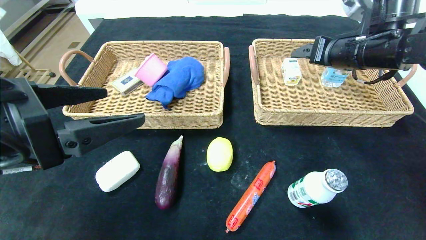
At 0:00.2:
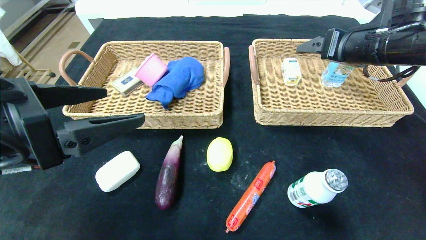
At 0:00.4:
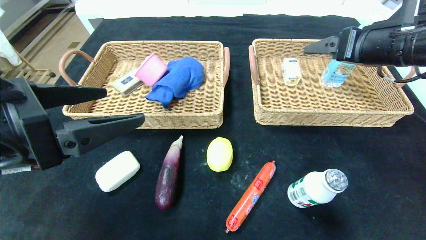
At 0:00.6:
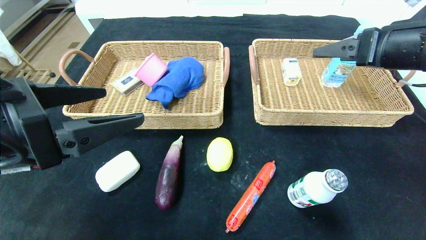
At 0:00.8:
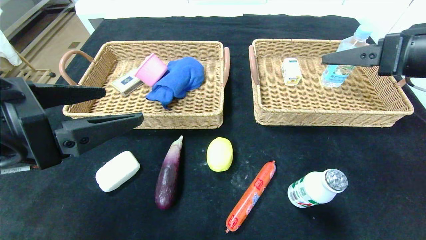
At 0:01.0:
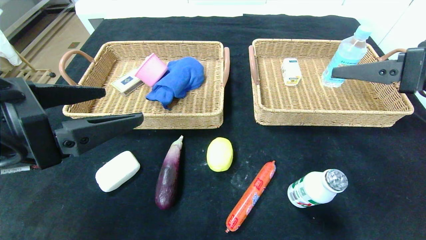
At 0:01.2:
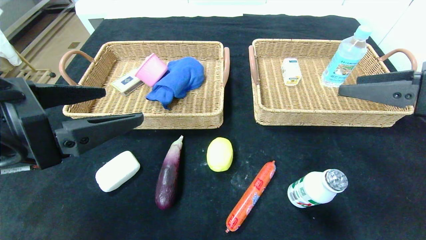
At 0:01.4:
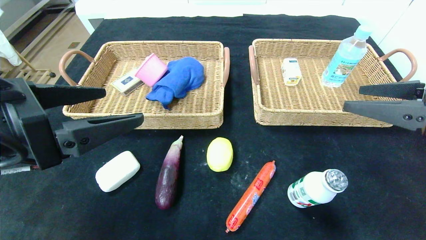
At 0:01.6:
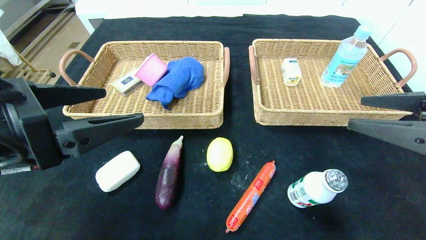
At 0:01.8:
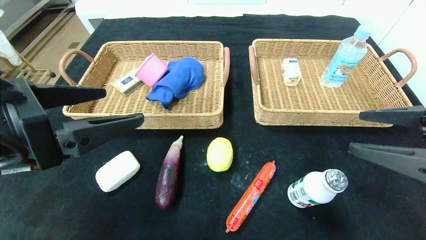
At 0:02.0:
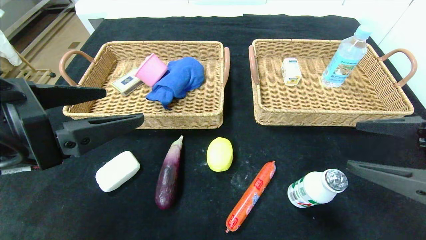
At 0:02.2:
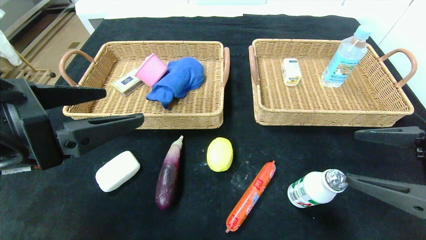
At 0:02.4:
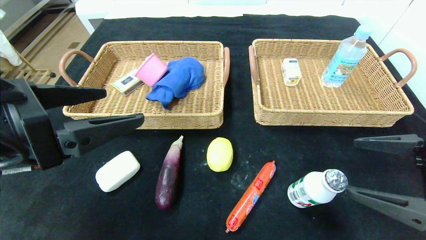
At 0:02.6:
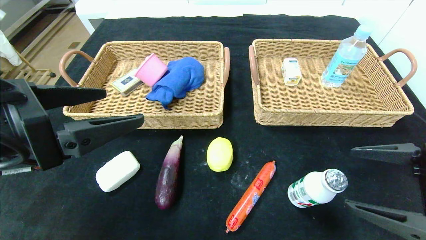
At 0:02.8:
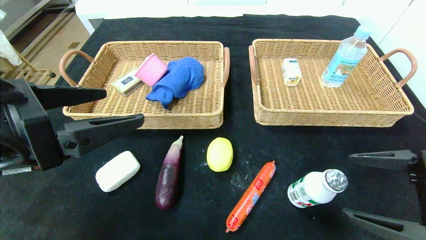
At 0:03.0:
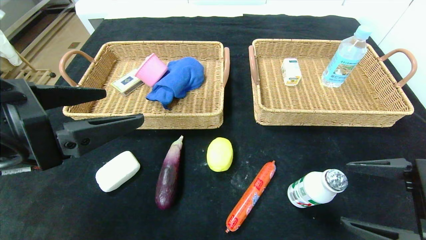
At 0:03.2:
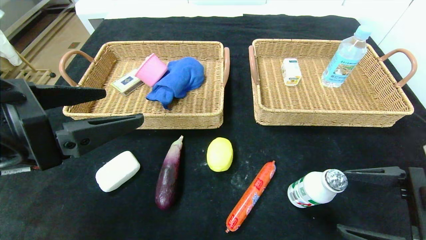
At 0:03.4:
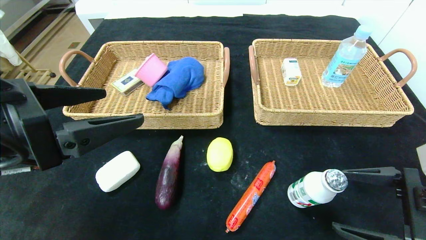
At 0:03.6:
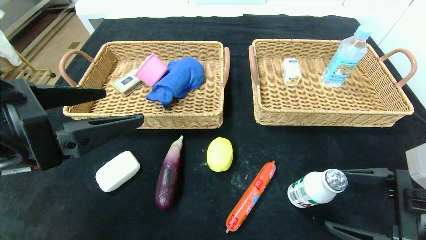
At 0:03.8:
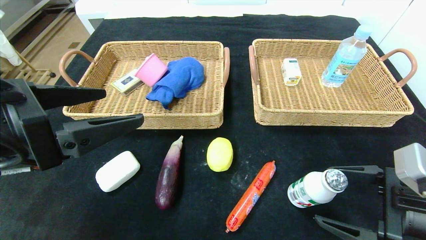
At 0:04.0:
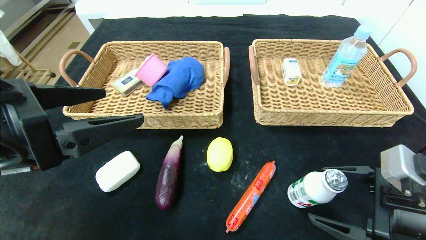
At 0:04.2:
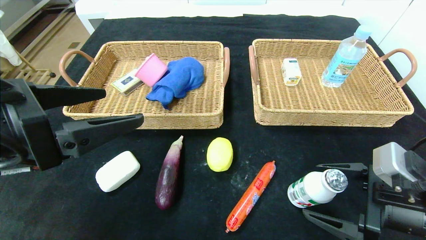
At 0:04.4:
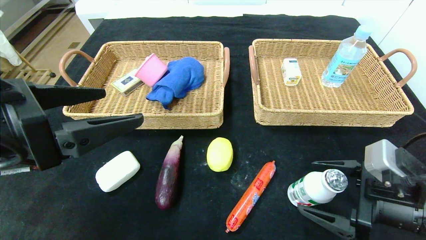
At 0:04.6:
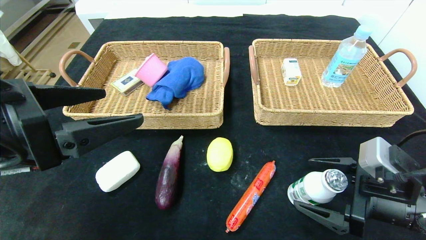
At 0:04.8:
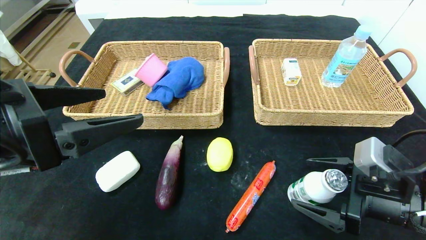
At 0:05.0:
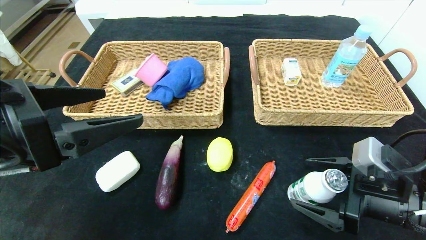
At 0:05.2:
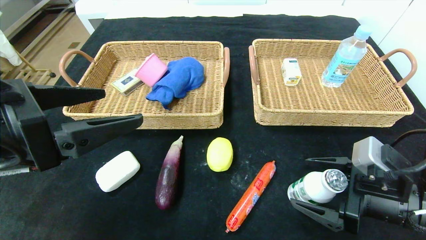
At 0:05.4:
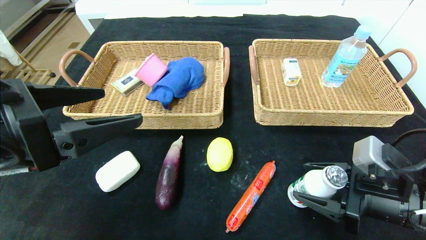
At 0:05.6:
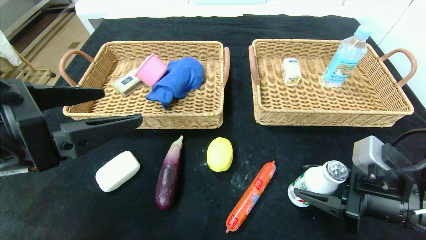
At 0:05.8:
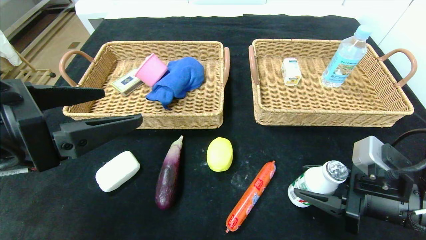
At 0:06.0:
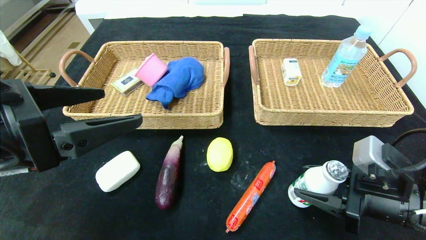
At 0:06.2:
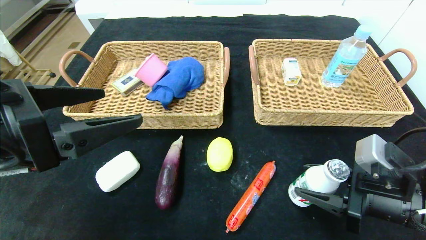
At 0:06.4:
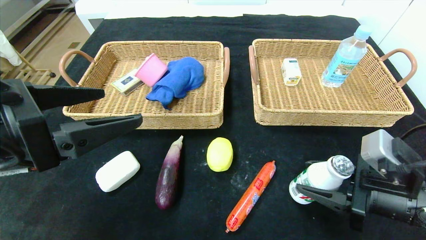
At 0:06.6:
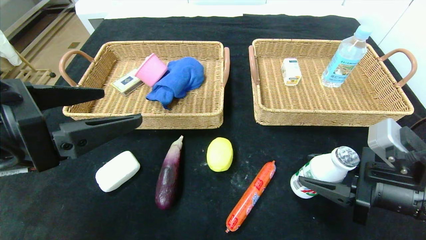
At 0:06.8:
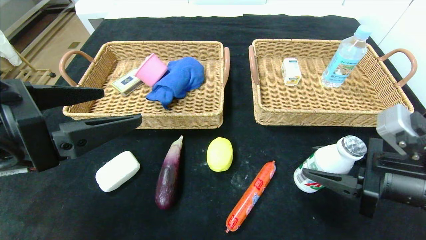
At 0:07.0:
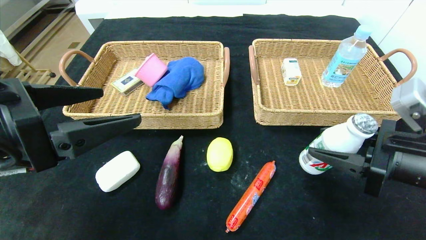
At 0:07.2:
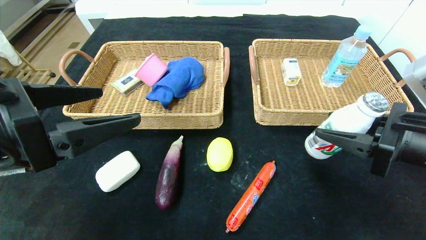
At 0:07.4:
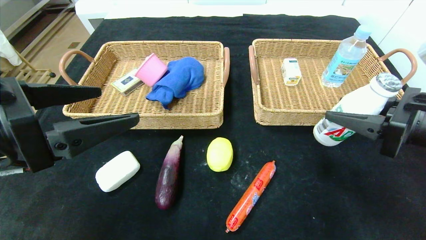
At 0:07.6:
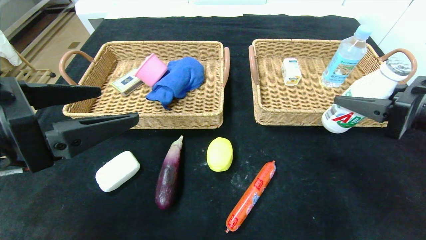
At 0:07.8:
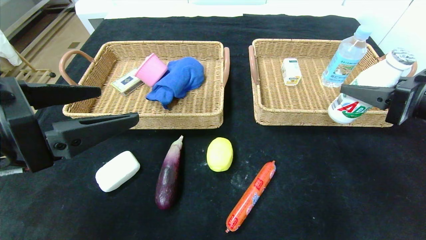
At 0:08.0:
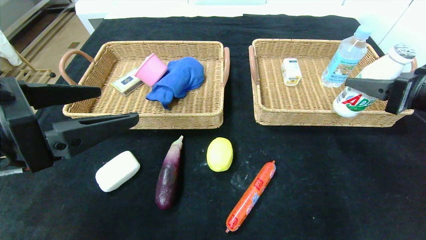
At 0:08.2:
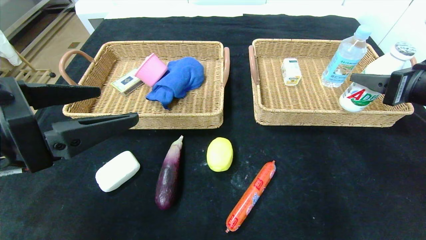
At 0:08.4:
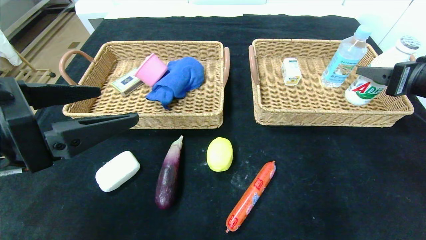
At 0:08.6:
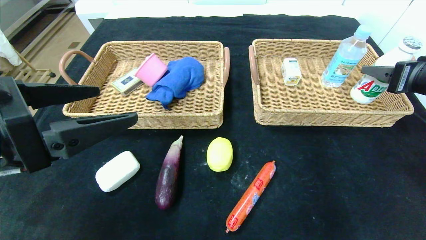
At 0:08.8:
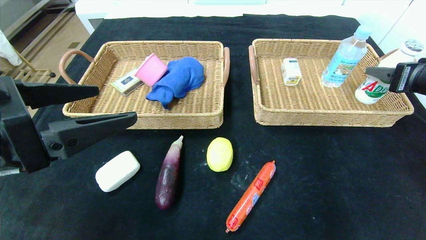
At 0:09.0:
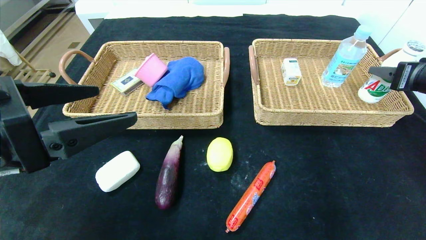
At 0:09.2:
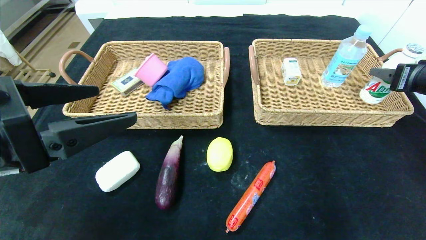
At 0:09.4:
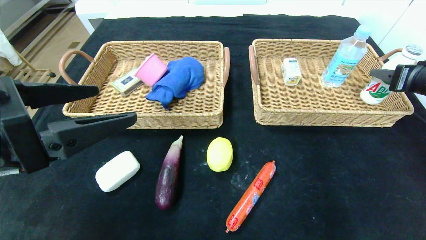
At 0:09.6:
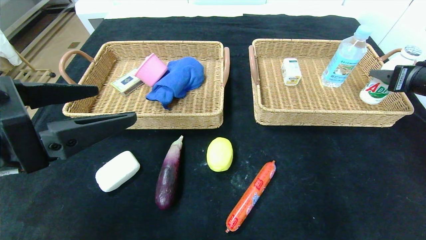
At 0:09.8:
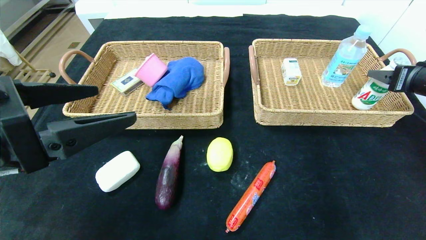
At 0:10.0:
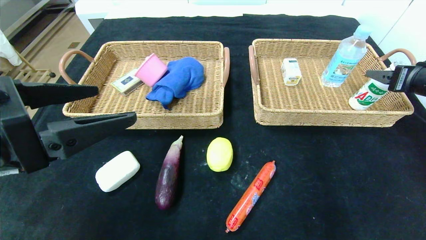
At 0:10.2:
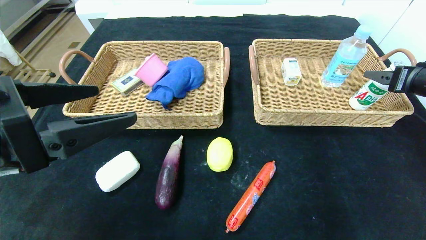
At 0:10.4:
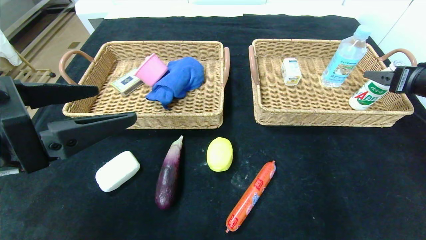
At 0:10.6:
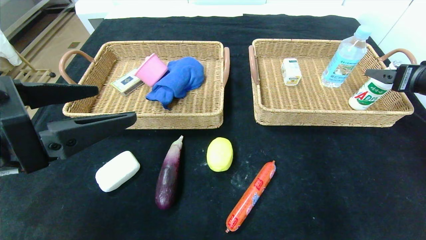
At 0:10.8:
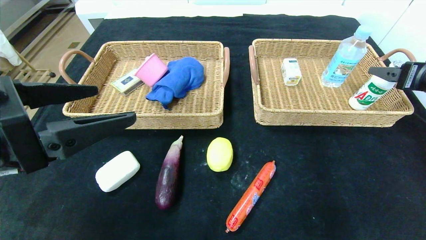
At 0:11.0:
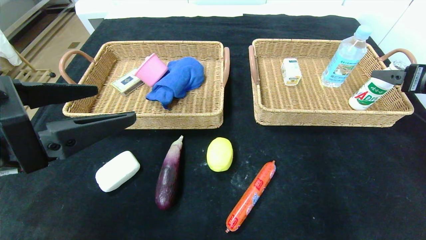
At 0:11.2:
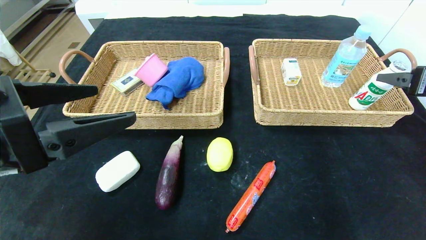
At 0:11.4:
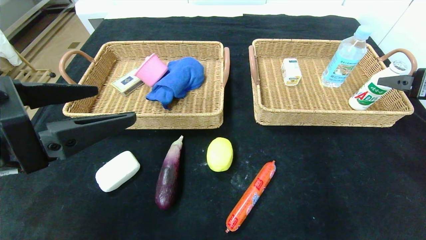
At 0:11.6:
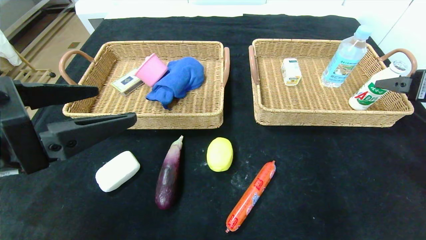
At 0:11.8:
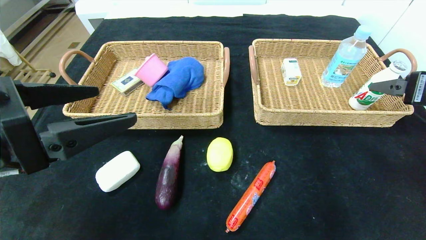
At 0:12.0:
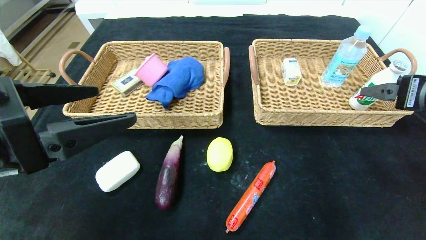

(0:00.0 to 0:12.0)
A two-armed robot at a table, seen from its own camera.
Step, 0:00.0 - 0:12.0: Grasp the milk and put it in the right basket.
0:00.0 - 0:01.6: The right gripper heads backward, covering approximately 20 cm.
0:01.6 - 0:03.0: The right gripper heads downward, covering some 10 cm.
0:03.0 - 0:04.4: The right gripper ends up roughly 5 cm from where it was.
0:04.4 - 0:06.0: The right gripper closes its fingers.
0:06.0 - 0:07.6: The right gripper is displaced upward by some 10 cm.
0:07.6 - 0:09.0: The right gripper moves to the right and forward, some 10 cm.
0:09.0 - 0:10.4: The right gripper opens up.
0:10.4 - 0:12.0: The right gripper heads backward and to the left, covering some 10 cm.

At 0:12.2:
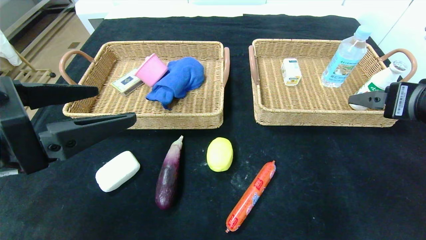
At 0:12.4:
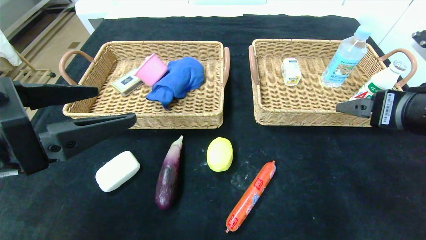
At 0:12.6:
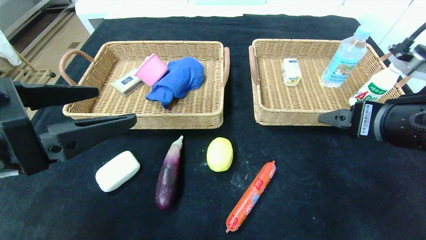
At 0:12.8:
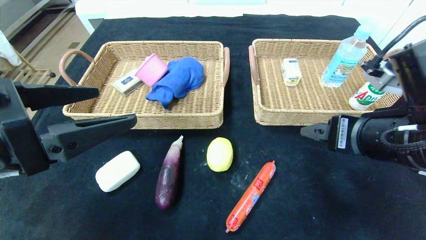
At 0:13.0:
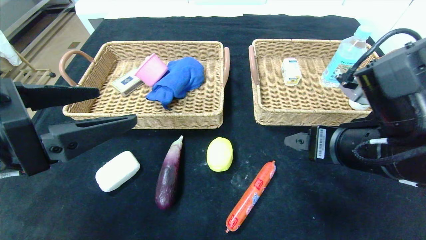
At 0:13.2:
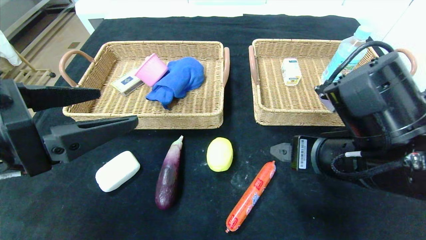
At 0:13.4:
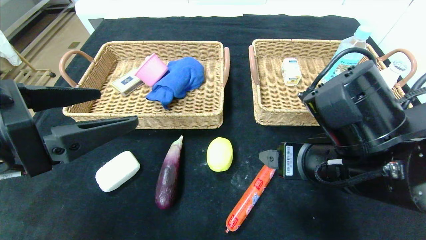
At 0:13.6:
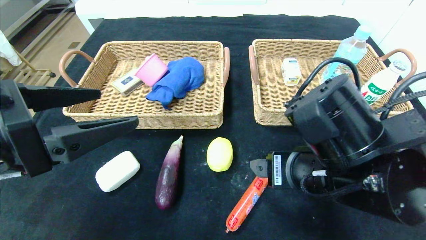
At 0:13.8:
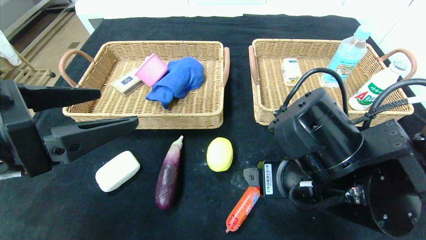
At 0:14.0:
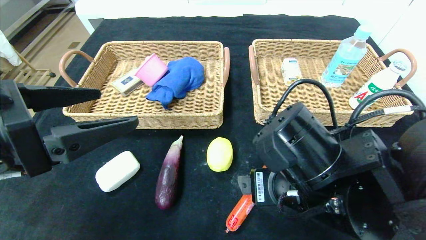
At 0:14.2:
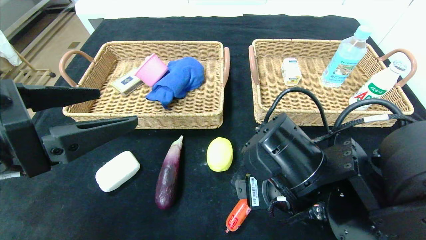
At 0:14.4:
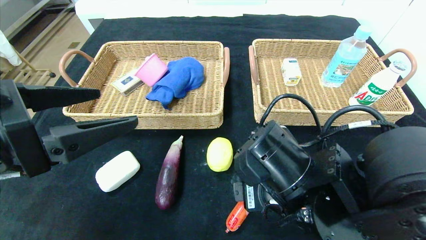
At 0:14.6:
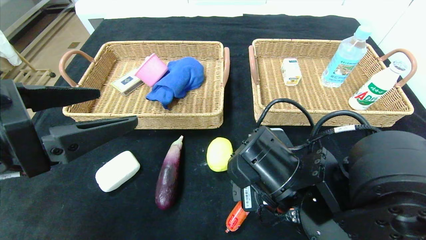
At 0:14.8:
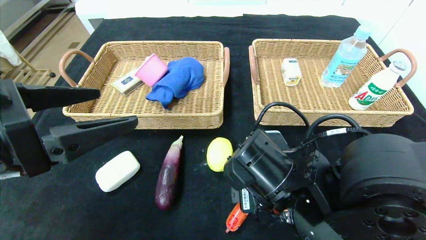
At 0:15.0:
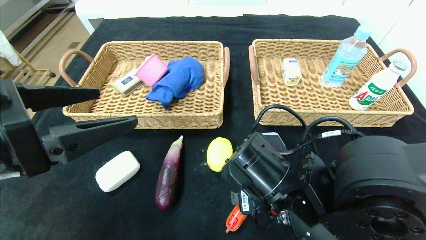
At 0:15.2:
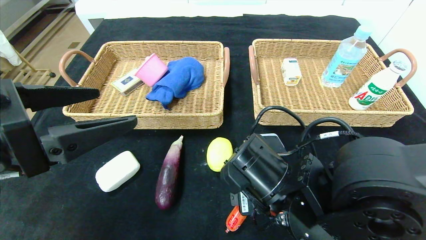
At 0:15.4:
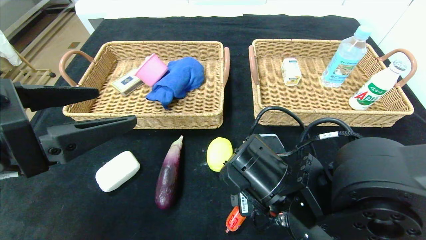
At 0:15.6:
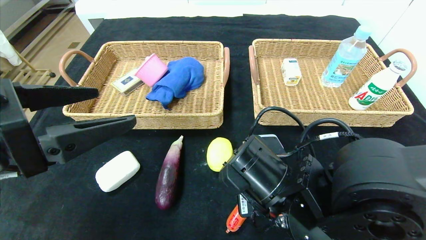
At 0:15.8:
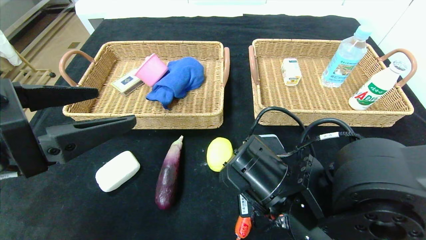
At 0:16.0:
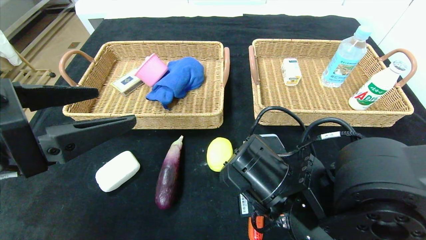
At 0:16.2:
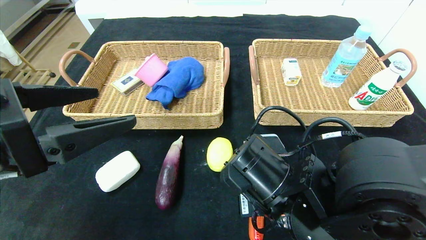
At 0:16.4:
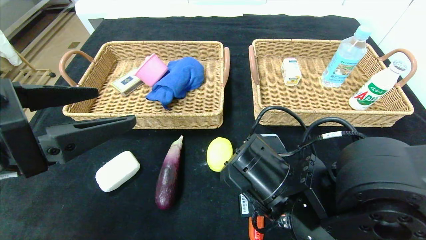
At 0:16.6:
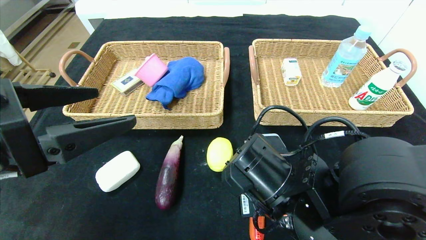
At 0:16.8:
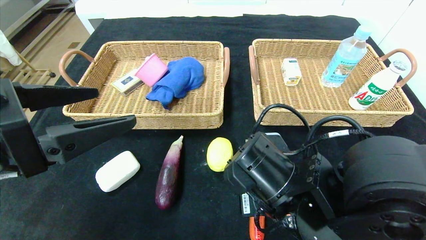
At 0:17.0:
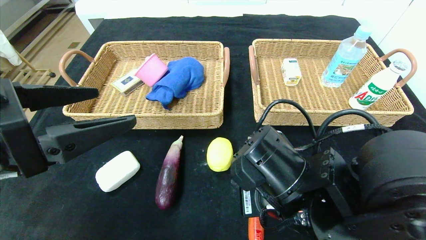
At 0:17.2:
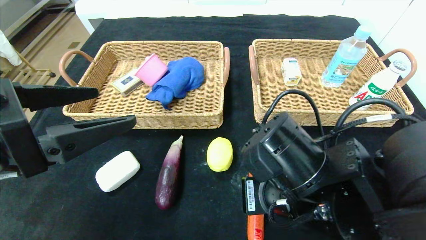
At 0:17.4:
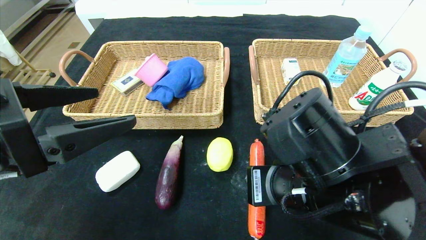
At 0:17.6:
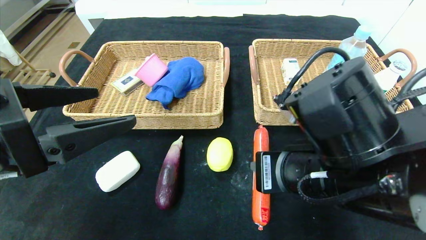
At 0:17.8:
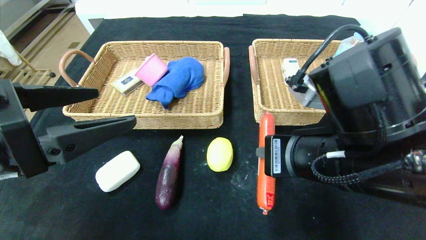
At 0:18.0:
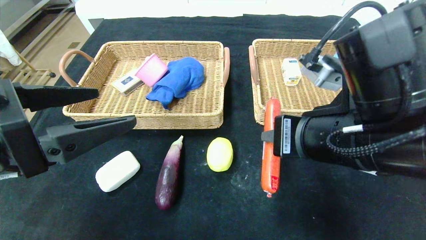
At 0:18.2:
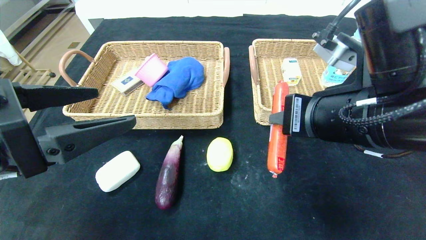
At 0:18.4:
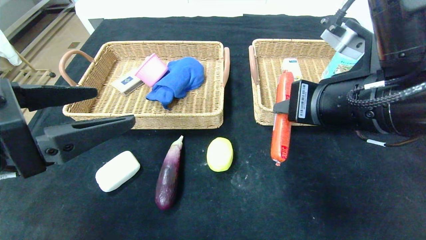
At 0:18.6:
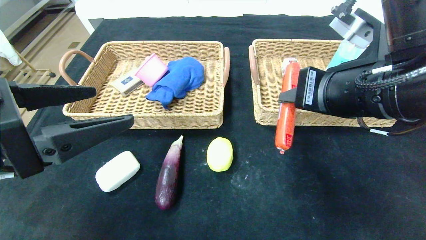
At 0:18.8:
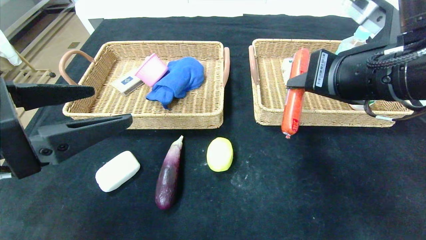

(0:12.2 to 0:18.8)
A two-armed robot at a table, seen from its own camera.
0:12.2 - 0:13.8: The right gripper moves to the left and downward, roughly 20 cm.
0:13.8 - 0:15.4: The right gripper changes place by about 5 cm.
0:15.4 - 0:17.2: The right gripper closes.
0:17.2 - 0:18.8: The right gripper moves upward and to the right, approximately 15 cm.
